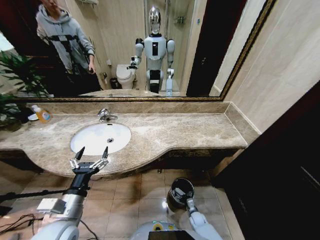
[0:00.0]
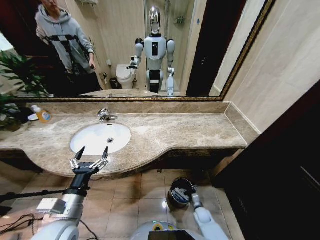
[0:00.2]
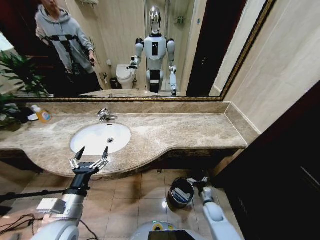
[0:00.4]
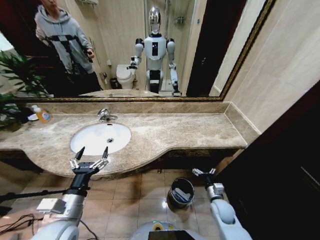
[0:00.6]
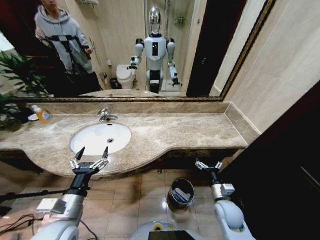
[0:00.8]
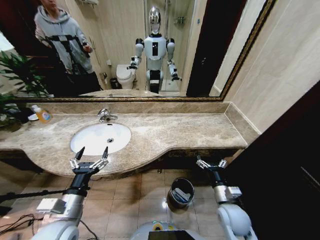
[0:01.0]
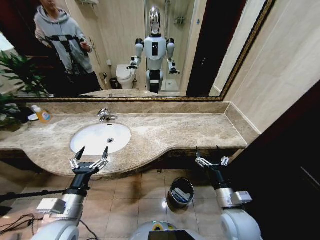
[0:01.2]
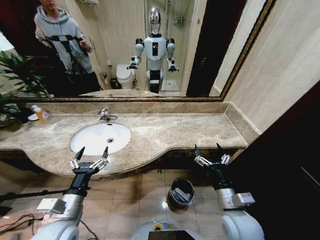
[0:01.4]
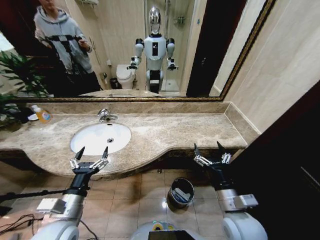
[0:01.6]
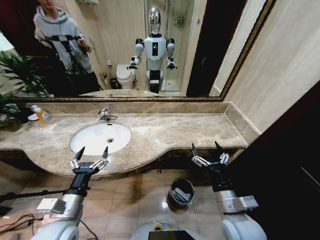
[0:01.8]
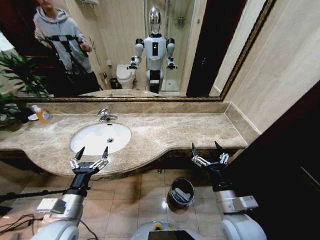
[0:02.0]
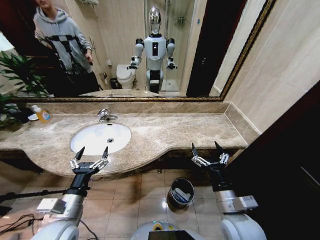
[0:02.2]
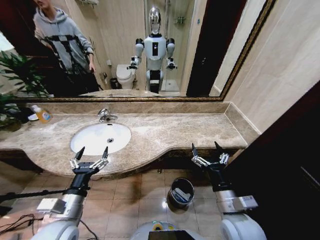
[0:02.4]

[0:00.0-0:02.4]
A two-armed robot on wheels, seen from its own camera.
Task of the whole recording: Pick up the trash from the sink and place it in the trash bin.
0:00.0 to 0:01.2: The right gripper goes about 35 cm upward.
0:01.2 to 0:02.4: The right gripper moves approximately 5 cm.

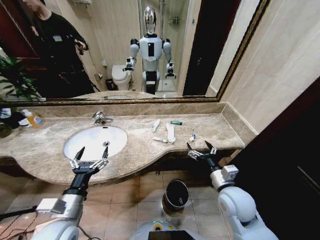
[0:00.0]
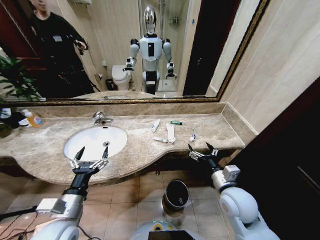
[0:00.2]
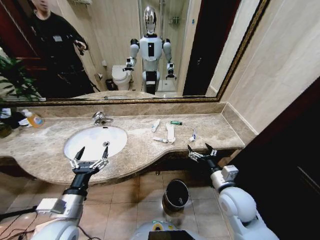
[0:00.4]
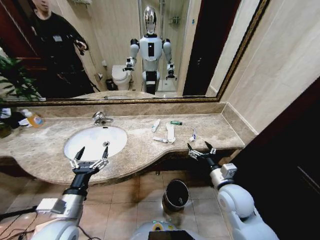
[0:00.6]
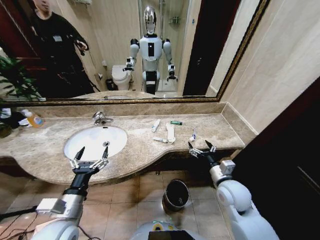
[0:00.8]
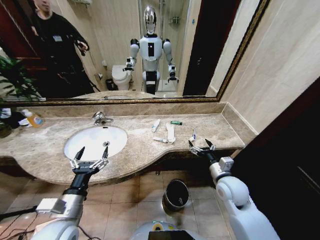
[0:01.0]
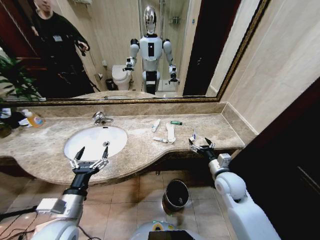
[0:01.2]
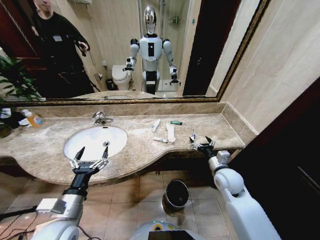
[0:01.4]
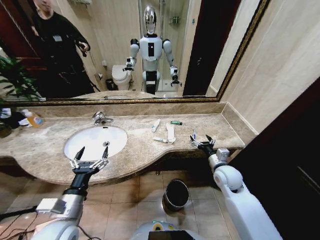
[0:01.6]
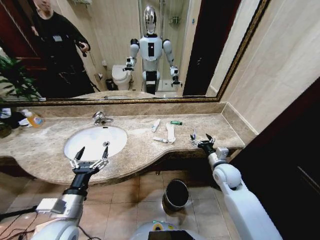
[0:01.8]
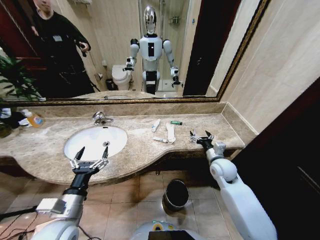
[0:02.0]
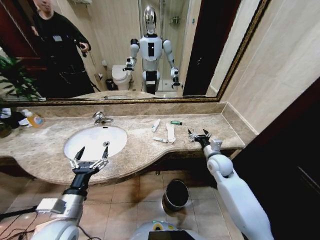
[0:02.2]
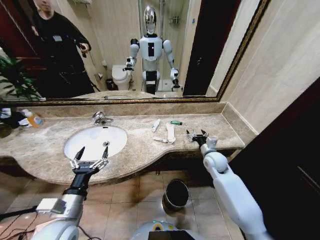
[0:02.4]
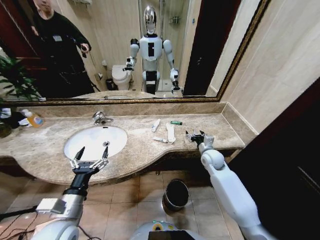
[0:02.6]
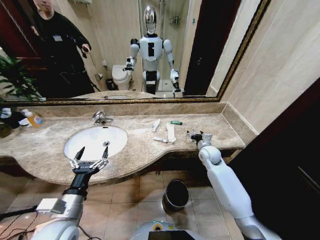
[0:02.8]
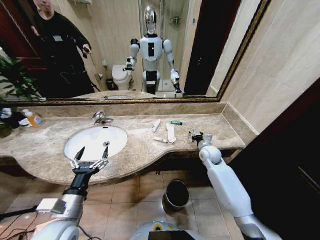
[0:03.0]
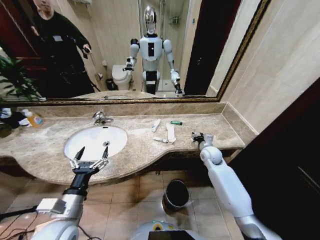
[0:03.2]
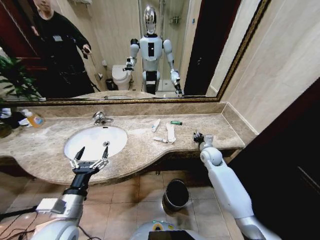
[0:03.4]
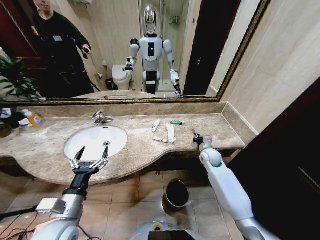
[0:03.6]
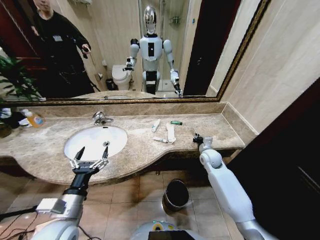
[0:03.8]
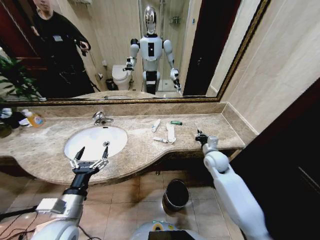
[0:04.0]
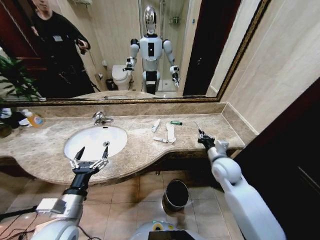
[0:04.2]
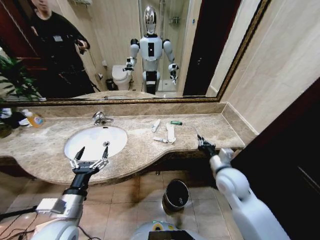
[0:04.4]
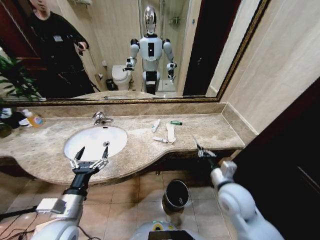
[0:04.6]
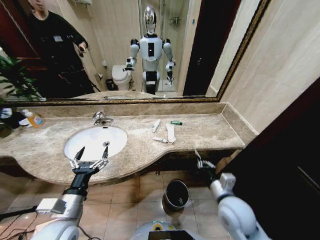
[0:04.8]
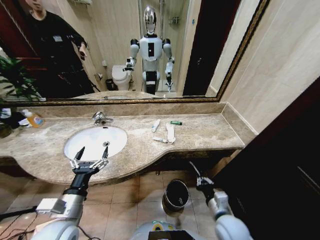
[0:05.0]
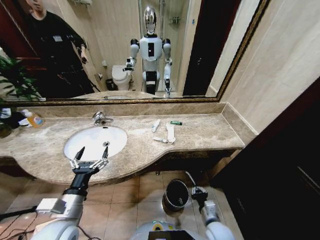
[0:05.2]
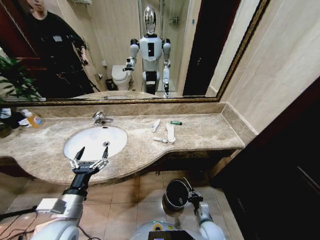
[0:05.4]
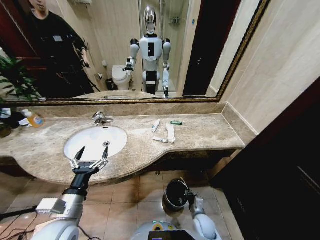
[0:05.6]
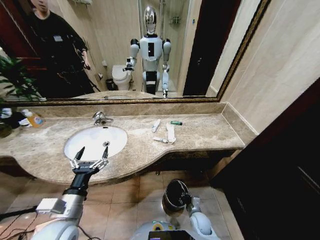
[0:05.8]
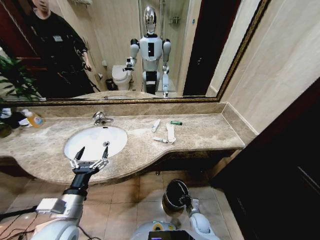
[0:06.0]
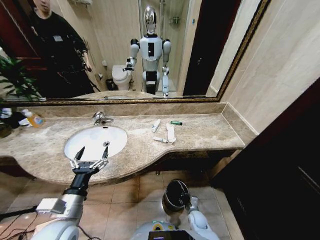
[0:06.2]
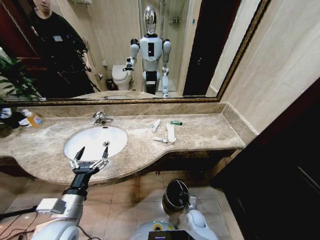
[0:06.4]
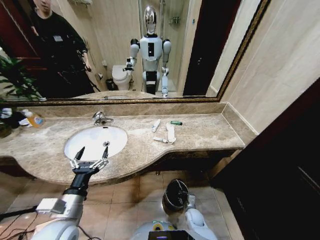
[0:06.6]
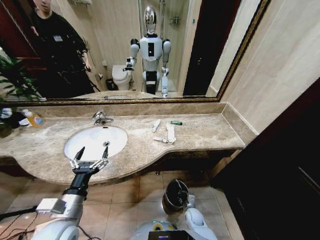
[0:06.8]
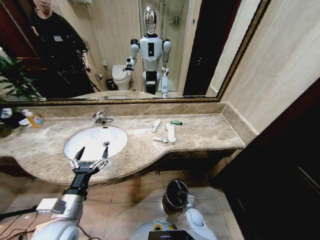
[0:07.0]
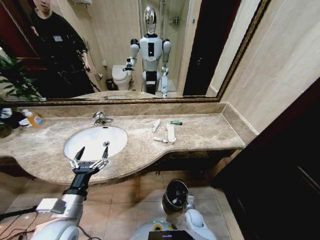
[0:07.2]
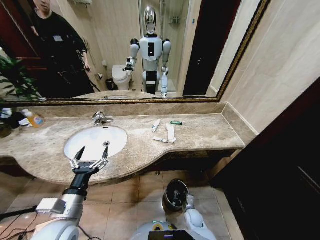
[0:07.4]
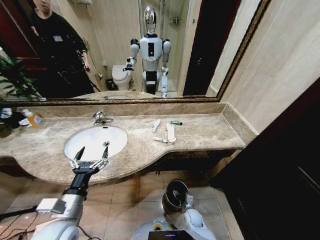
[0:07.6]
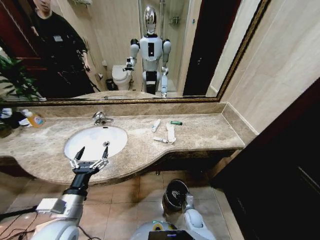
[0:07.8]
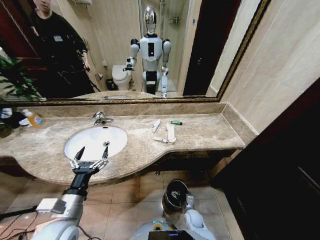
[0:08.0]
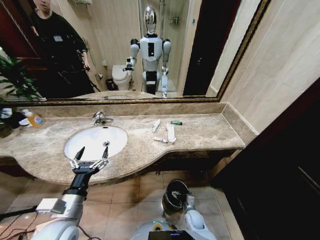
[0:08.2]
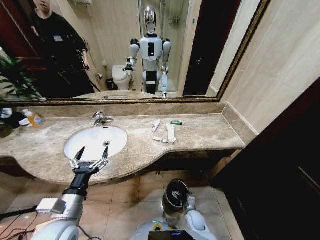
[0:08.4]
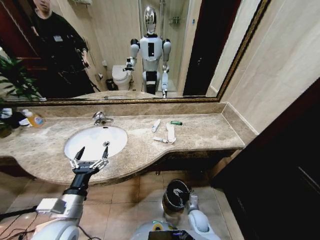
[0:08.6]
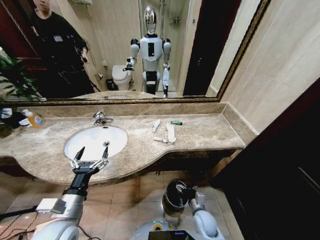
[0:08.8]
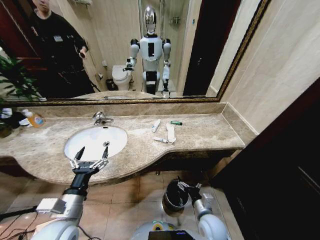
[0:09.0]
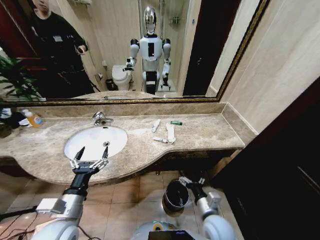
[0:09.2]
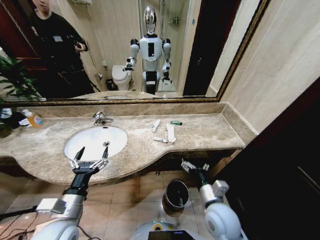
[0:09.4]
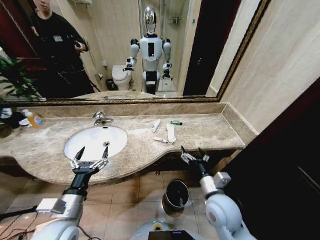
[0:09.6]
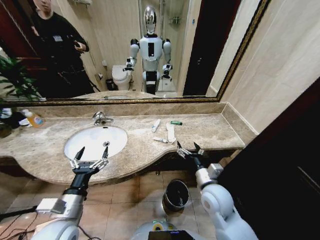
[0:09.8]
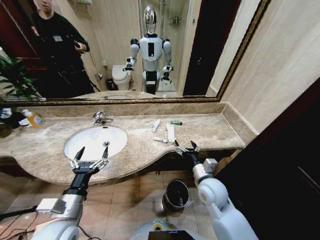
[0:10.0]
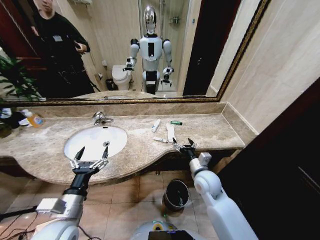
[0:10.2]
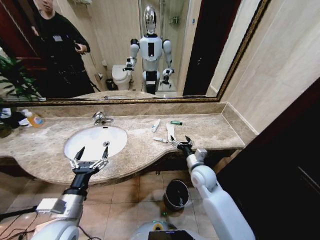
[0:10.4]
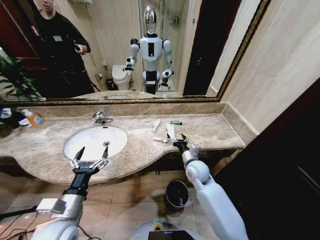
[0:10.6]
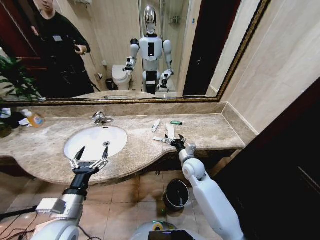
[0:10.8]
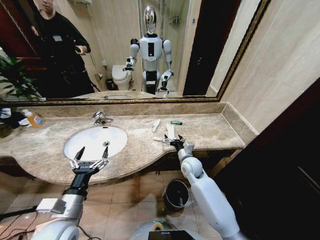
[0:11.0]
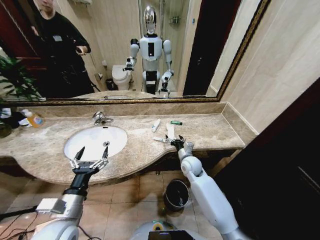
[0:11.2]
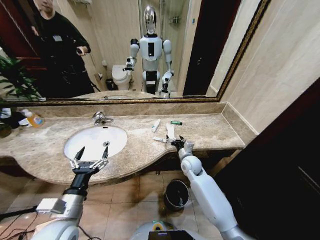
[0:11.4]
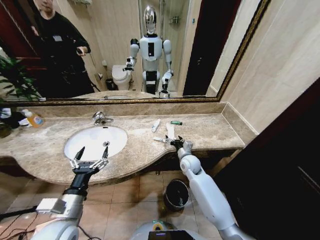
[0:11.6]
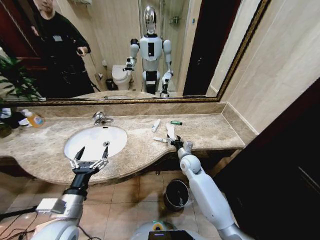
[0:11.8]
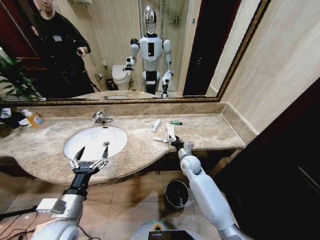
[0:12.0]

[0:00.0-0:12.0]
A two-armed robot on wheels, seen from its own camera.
Task of the whole recording: Pick up the trash from the sink and place it in the trash bin.
0:01.6 to 0:03.0: The right gripper is displaced forward by about 10 cm.
0:03.0 to 0:04.4: The right gripper goes some 15 cm backward, and closes up.
0:04.4 to 0:06.0: The right gripper shifts some 35 cm downward.
0:06.0 to 0:07.6: The right gripper opens up.
0:07.6 to 0:09.0: The right gripper shifts approximately 20 cm upward, and opens up.
0:09.0 to 0:10.4: The right gripper travels forward and upward by about 20 cm.
0:10.4 to 0:12.0: The right gripper moves forward, roughly 10 cm, and closes up.

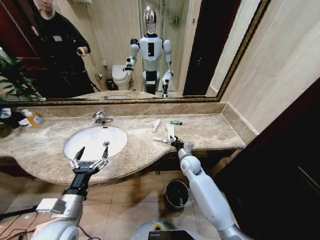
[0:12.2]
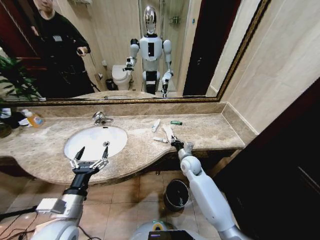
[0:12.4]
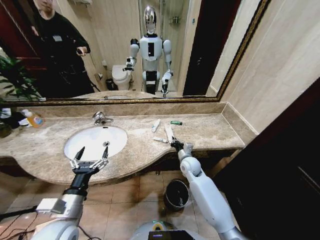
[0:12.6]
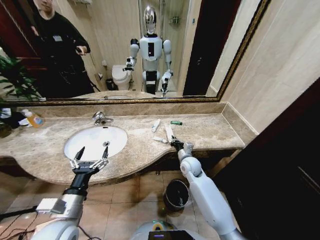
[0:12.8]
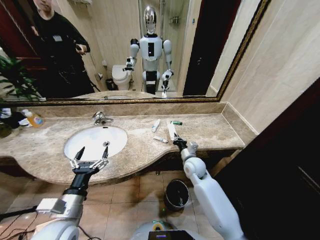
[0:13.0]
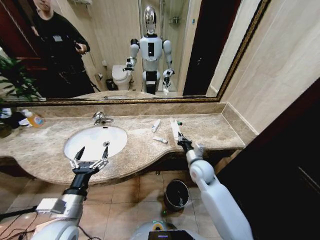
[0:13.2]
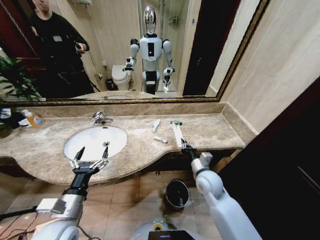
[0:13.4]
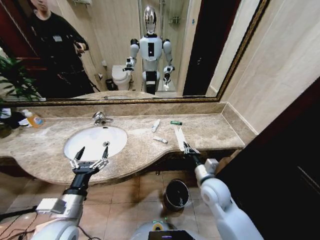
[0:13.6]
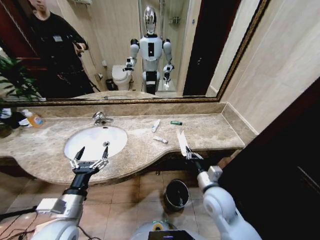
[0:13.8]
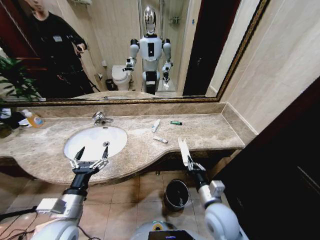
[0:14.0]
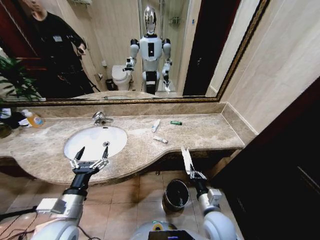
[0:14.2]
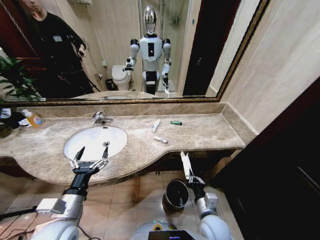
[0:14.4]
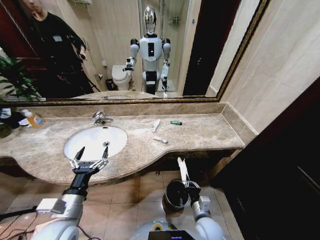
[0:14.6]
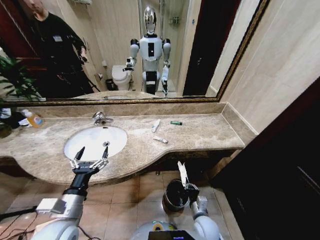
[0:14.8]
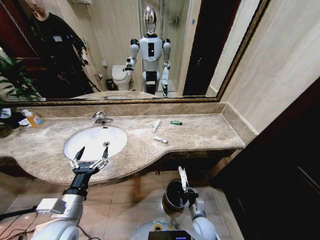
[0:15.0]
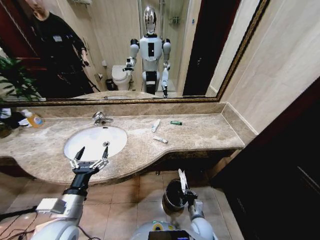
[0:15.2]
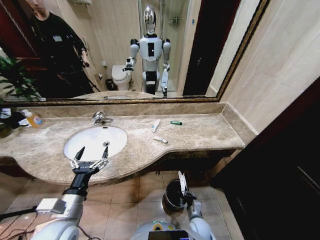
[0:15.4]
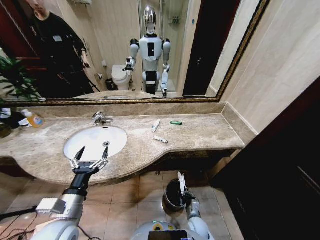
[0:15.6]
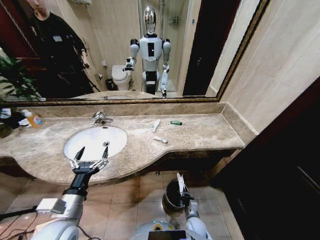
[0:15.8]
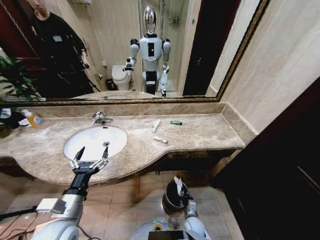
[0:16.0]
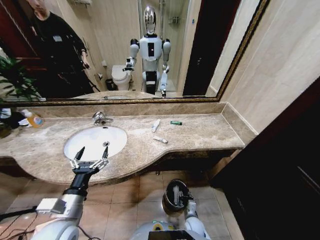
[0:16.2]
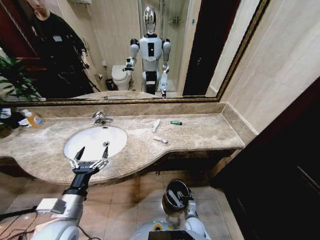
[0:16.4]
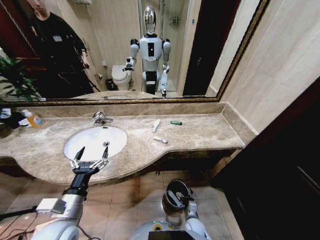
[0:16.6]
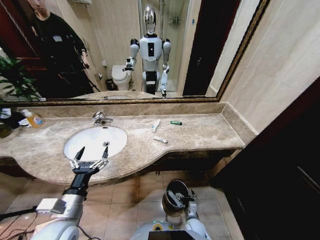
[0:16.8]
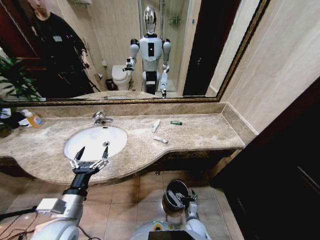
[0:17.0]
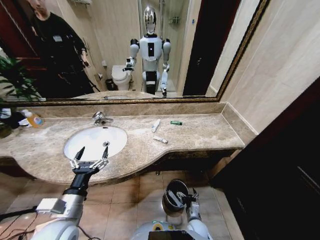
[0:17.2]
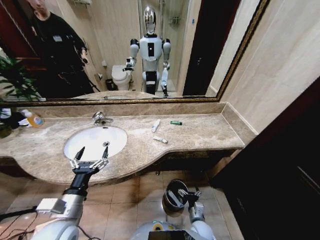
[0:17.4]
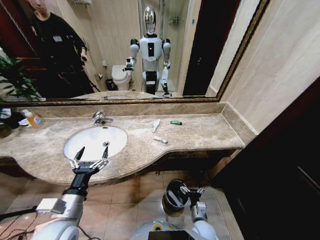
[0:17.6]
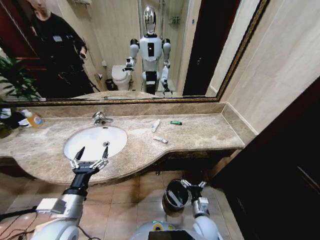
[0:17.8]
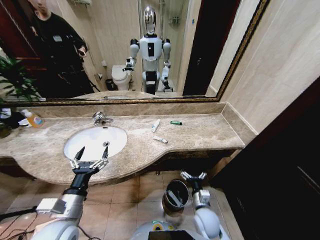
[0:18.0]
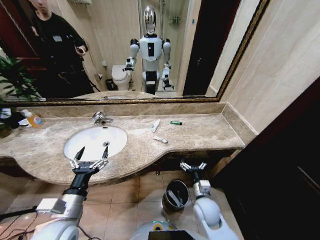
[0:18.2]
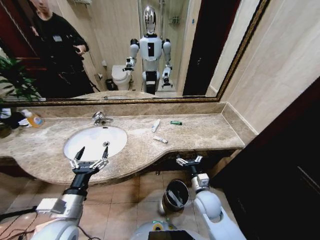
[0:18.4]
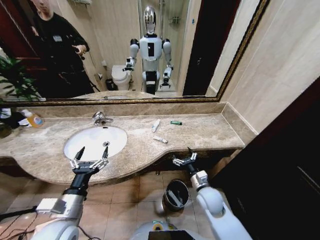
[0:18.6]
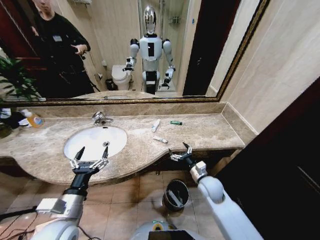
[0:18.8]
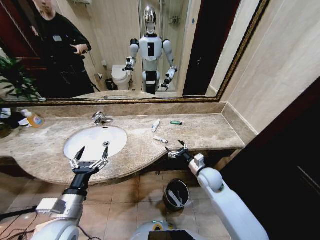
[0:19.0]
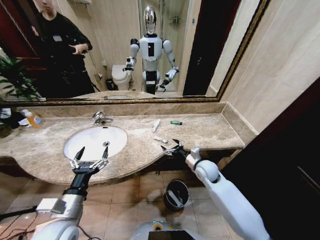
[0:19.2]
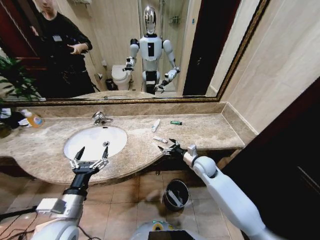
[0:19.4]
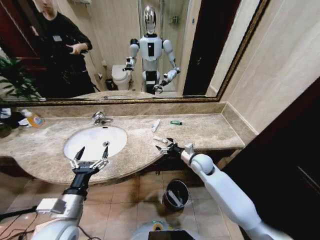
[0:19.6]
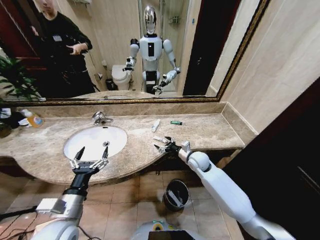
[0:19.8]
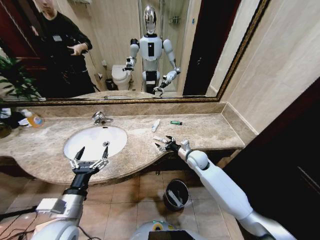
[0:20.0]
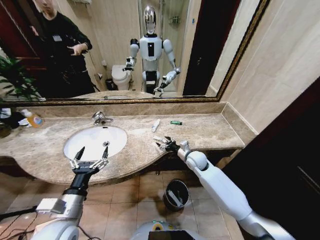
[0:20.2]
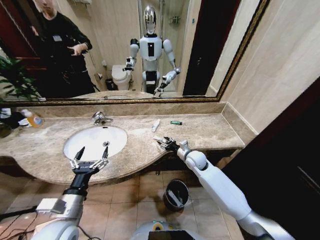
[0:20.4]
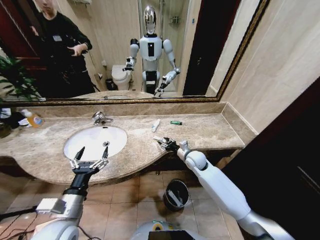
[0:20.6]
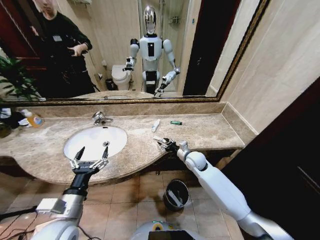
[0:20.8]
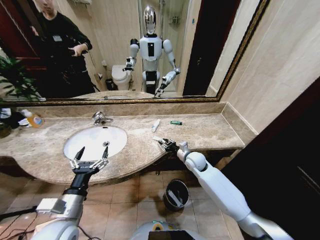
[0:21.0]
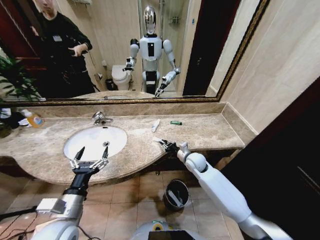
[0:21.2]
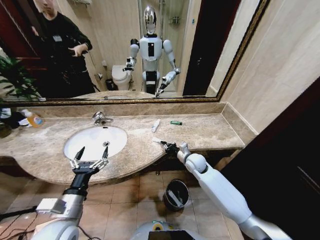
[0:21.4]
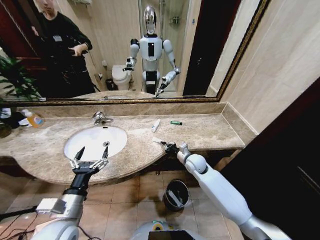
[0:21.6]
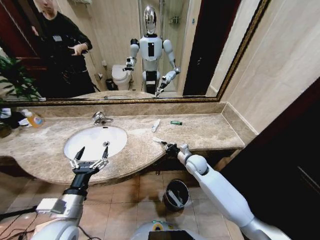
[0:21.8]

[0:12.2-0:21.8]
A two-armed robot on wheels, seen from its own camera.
Task of the whole recording: Pick up the trash from the sink and place it in the trash bin.
0:12.2 to 0:13.8: The right gripper shifts about 20 cm backward, and closes.
0:13.8 to 0:15.4: The right gripper shifts approximately 25 cm downward.
0:15.4 to 0:17.0: The right gripper opens up.
0:17.0 to 0:18.6: The right gripper shifts roughly 25 cm upward and forward.
0:18.6 to 0:20.2: The right gripper goes roughly 15 cm forward.
0:20.2 to 0:21.8: The right gripper closes up.
